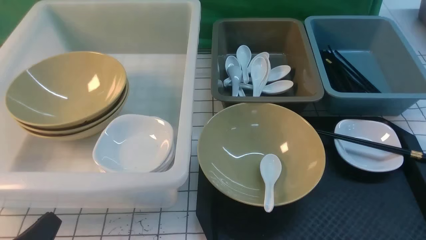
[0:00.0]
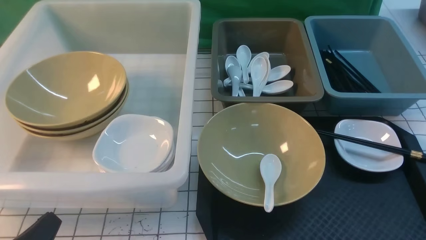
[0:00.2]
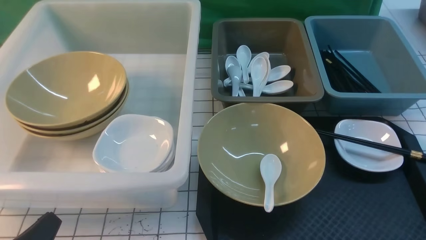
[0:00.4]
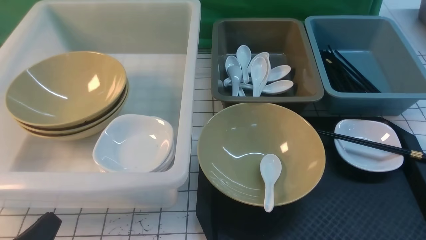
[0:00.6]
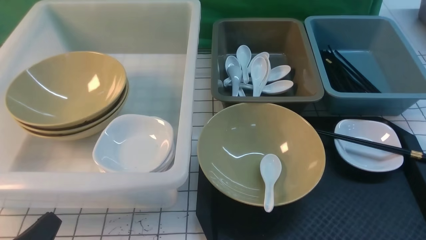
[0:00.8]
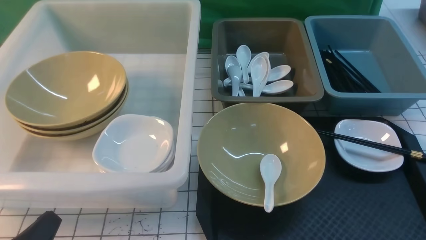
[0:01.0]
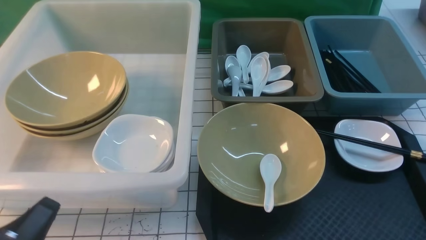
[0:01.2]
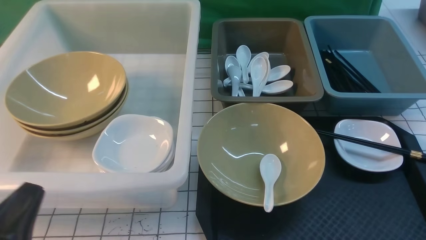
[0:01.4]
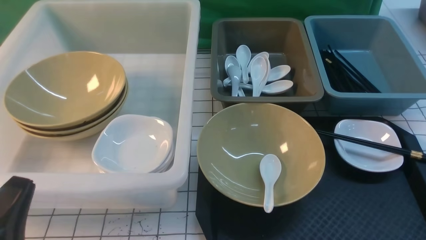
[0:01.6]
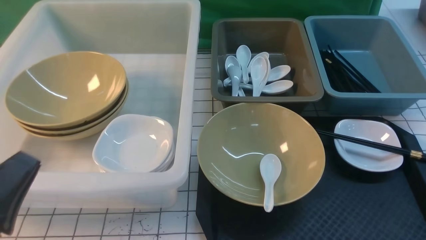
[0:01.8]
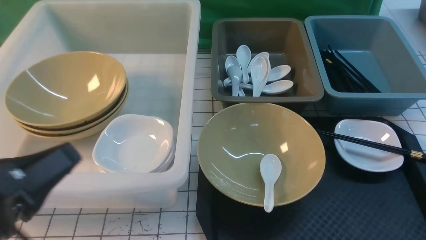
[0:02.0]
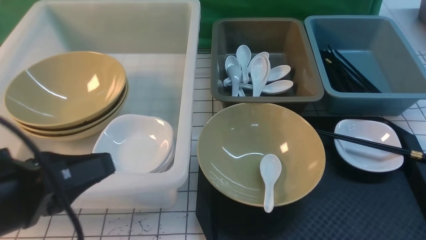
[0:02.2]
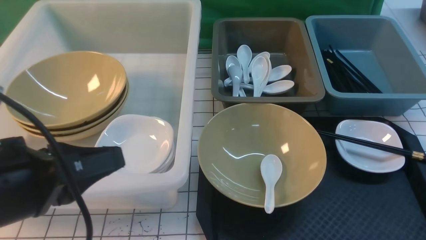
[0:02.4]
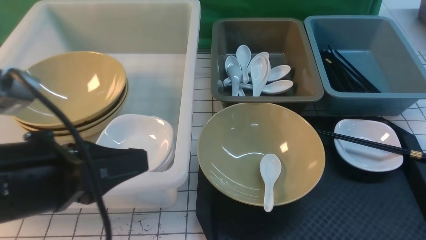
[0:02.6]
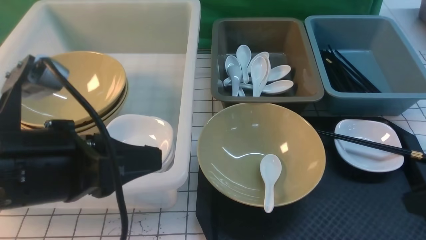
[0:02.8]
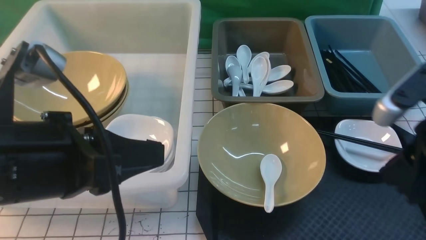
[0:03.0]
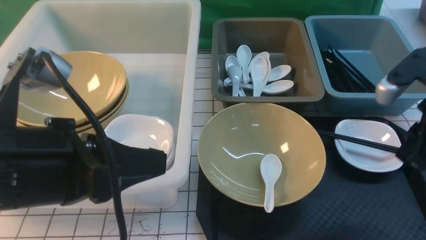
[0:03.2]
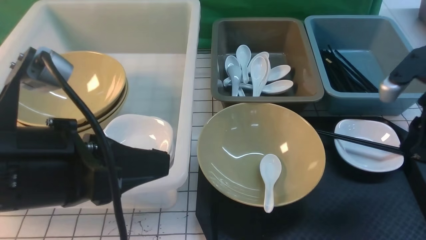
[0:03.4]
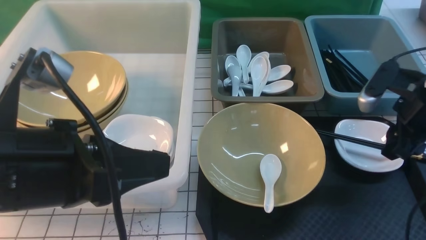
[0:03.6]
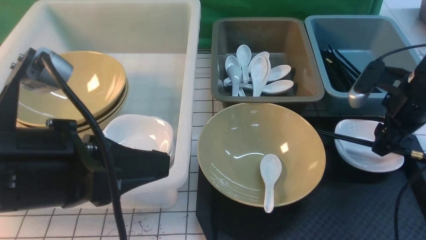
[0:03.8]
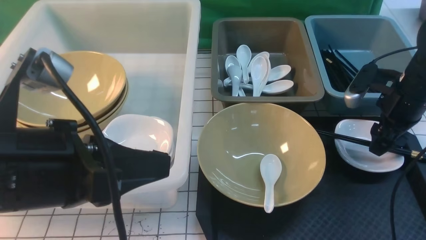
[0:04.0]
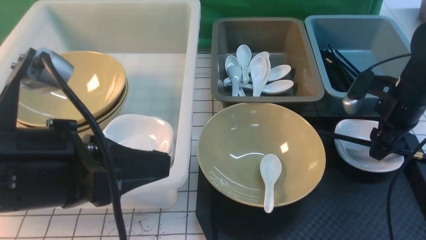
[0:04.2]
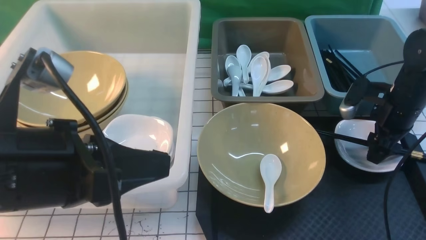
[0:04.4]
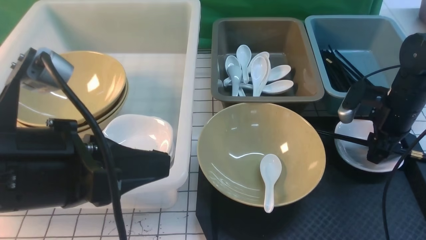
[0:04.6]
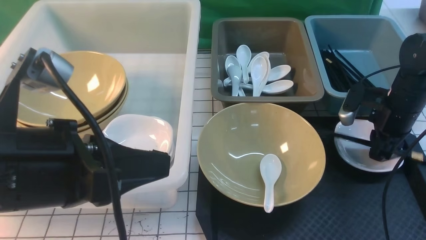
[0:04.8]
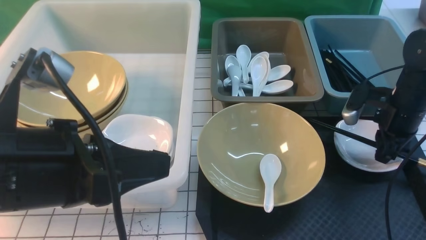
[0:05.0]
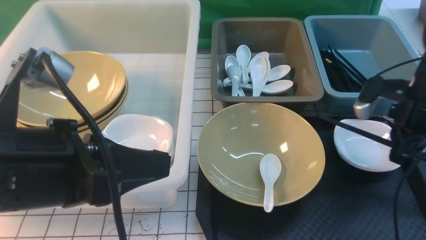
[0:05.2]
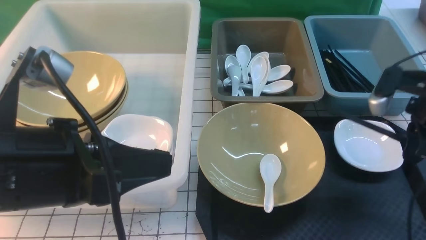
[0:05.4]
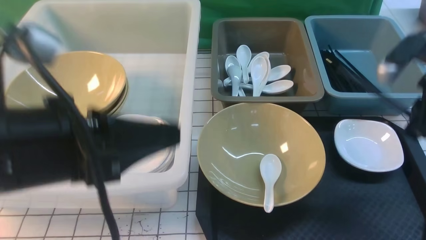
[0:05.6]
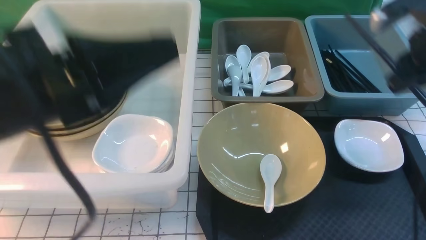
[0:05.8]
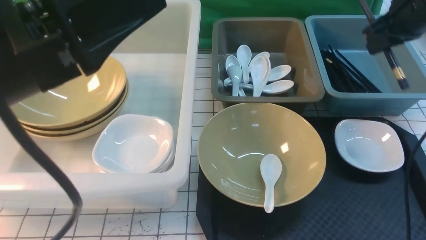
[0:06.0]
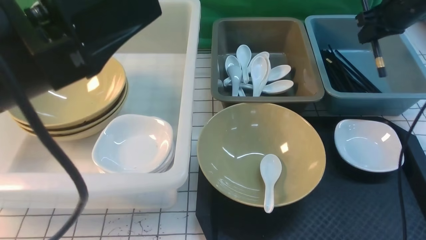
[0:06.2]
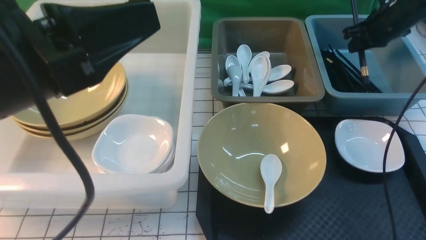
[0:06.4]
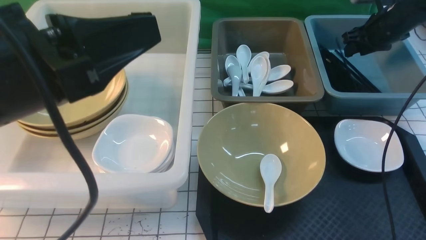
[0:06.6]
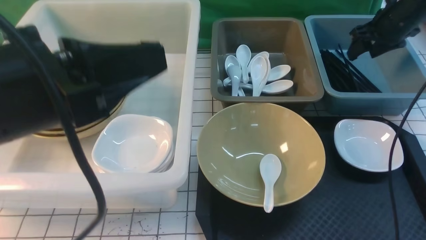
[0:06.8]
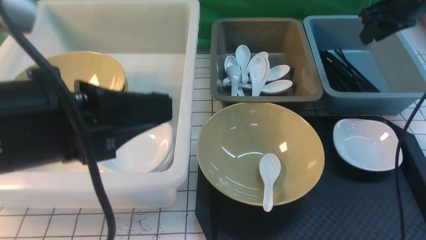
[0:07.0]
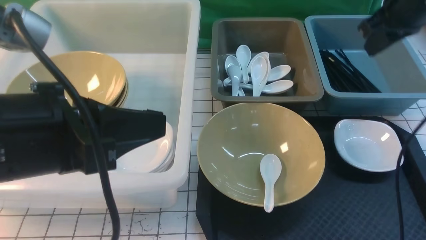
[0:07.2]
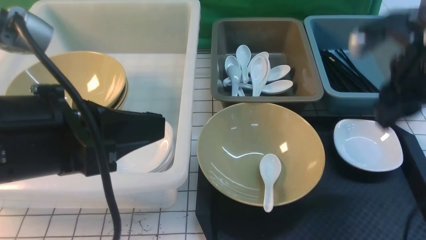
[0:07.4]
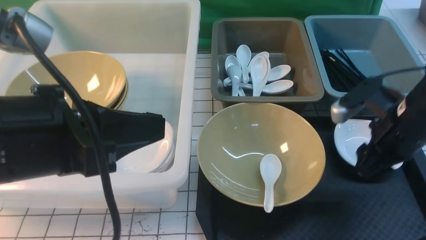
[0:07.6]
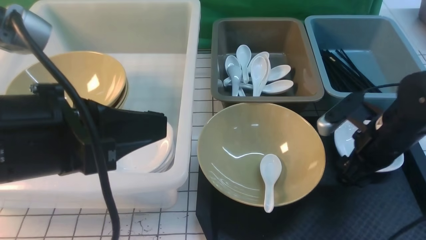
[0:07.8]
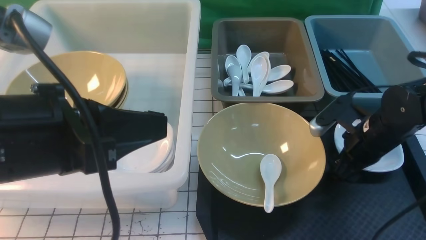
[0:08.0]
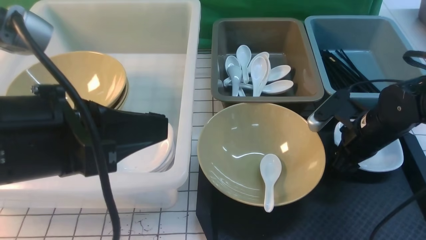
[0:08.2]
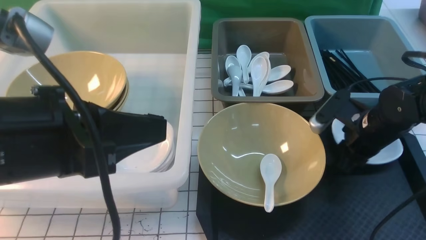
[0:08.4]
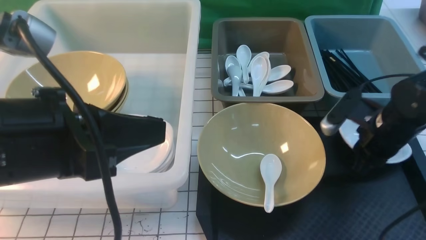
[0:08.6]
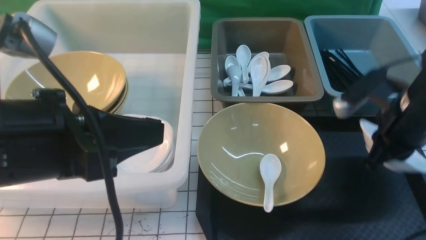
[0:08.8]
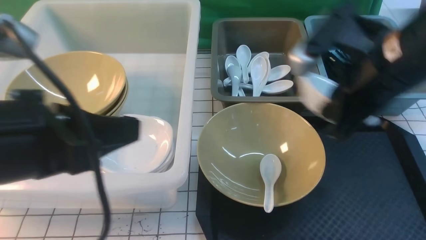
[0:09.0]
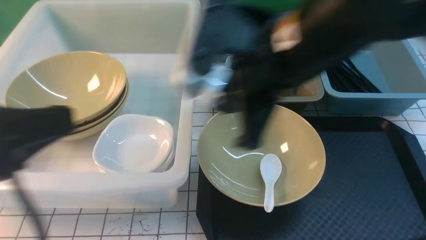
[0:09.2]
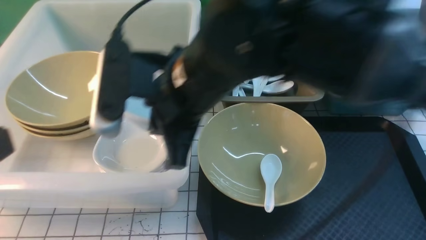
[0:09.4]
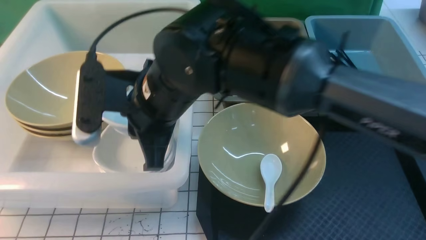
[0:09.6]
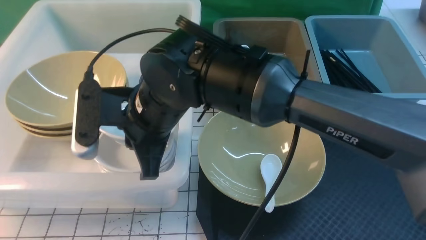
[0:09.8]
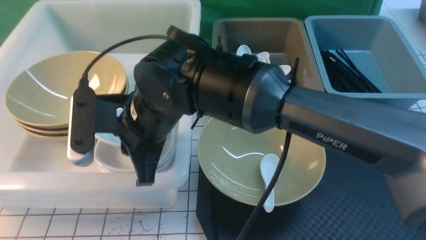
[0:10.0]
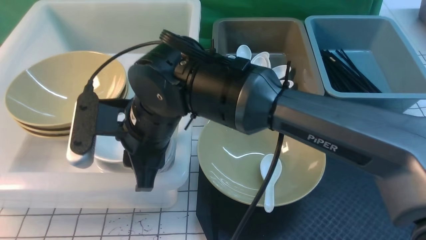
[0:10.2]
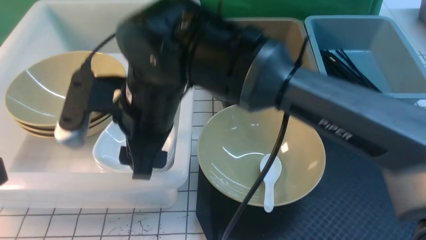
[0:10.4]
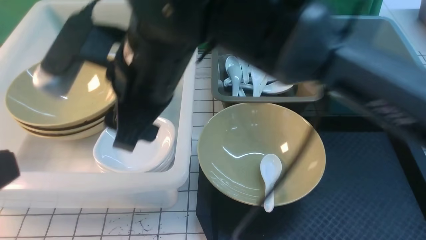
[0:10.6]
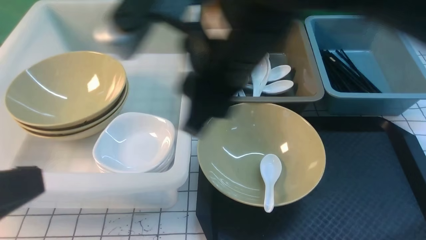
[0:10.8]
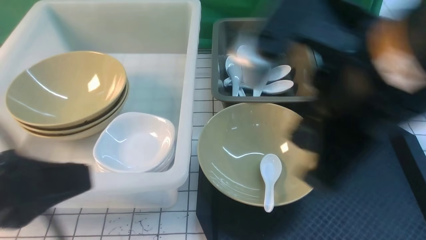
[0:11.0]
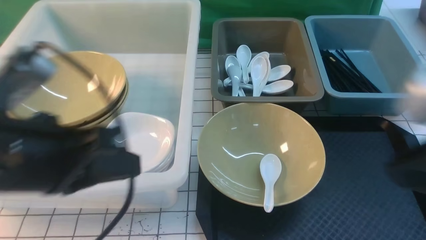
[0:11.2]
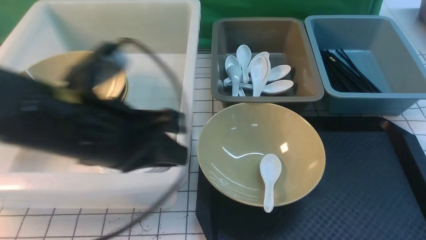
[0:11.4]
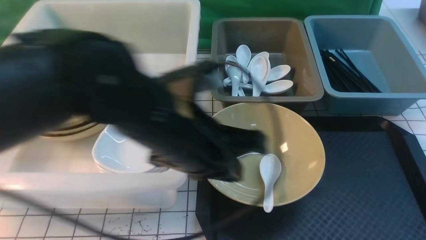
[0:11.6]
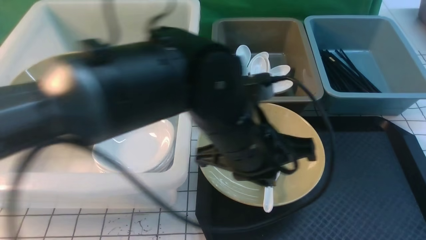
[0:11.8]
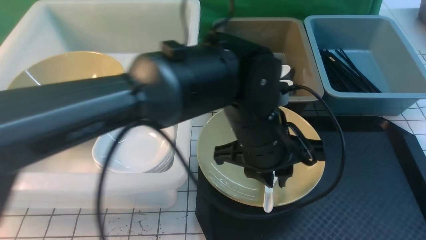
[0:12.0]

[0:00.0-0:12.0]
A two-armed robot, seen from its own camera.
Task of the whole recording: on white black table put chopsticks spoon bowls plates into blue grey white boxes.
Step, 0:00.0 to 0:05.4: use the right arm to grab the chopsticks.
Step, 0:05.6 to 0:07.0: use the right arm to put the chopsticks into the small storage box on the right.
Step, 0:07.2 to 0:08.8: use the right arm to grab the plate.
Step, 0:09.0 to 0:10.2: use the right arm to put the plate into the large storage box on the left.
0:00.0 to 0:01.6: The left gripper goes some 5 cm upward.
0:01.6 to 0:03.0: The left gripper shifts approximately 15 cm upward, to the right and forward; the right gripper shifts roughly 20 cm forward, upward and to the left.
0:03.0 to 0:04.4: The right gripper moves forward and downward, roughly 25 cm, and opens up.
0:04.4 to 0:06.0: The right gripper heads upward, covering some 15 cm, and closes up. Meanwhile the left gripper moves upward, roughly 5 cm.
0:06.0 to 0:07.6: The right gripper goes about 15 cm backward, downward and to the left, and opens its fingers.
0:07.6 to 0:09.0: The right gripper shifts approximately 15 cm upward and to the left, and closes.
0:09.0 to 0:10.4: The right gripper travels to the left by roughly 20 cm, and opens; the left gripper shifts some 10 cm backward and to the left.
0:10.4 to 0:12.0: The right gripper shifts about 40 cm to the right and backward, and closes its fingers; the left gripper heads to the right, forward and downward, covering approximately 35 cm, and opens.

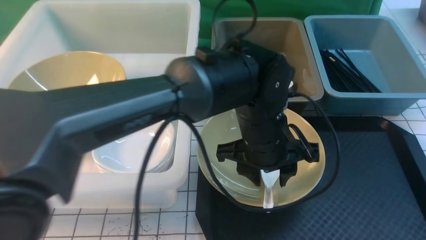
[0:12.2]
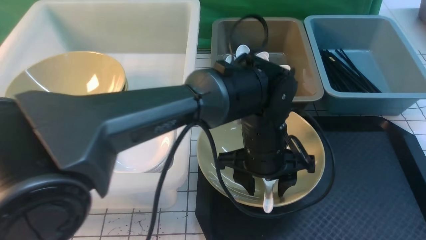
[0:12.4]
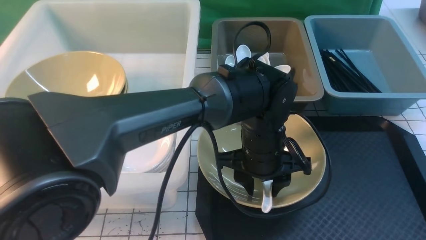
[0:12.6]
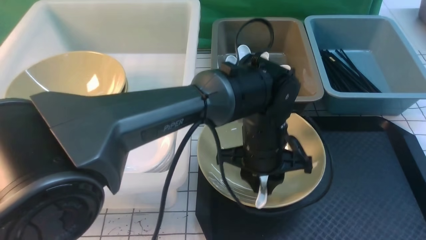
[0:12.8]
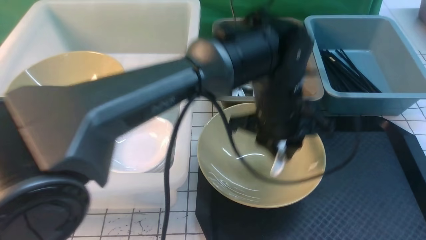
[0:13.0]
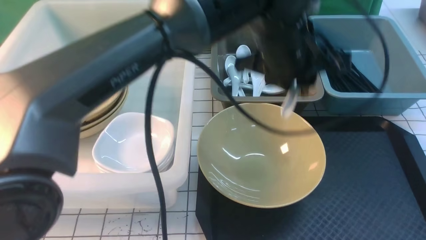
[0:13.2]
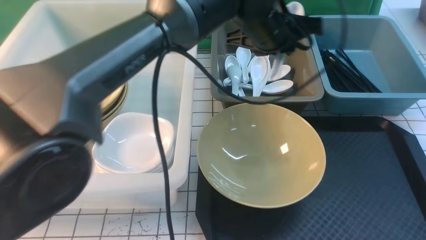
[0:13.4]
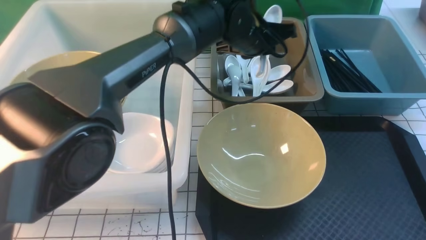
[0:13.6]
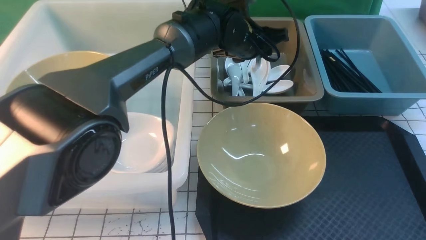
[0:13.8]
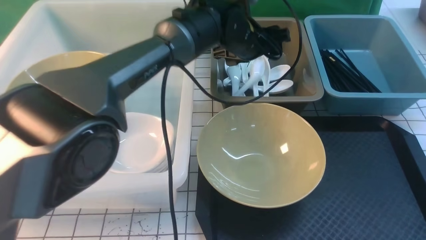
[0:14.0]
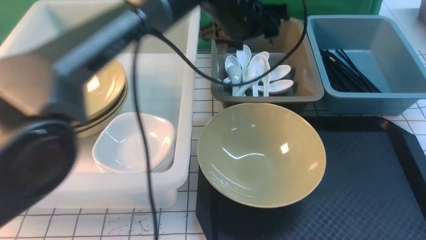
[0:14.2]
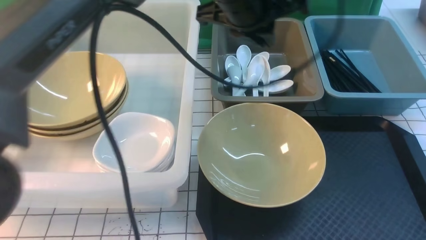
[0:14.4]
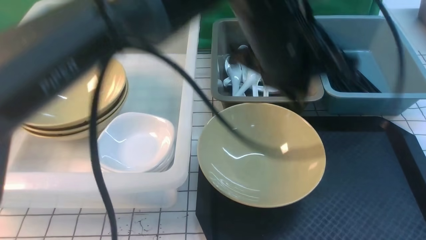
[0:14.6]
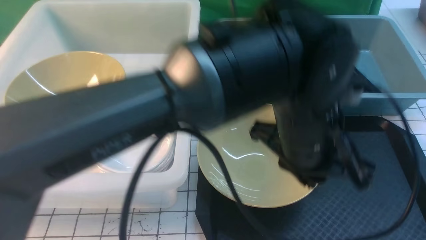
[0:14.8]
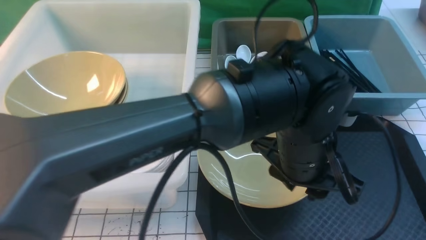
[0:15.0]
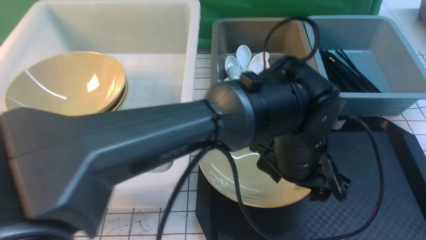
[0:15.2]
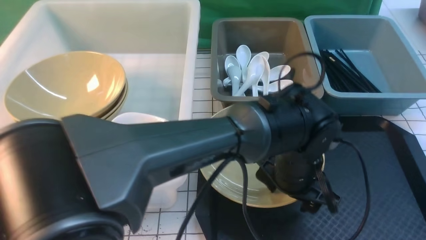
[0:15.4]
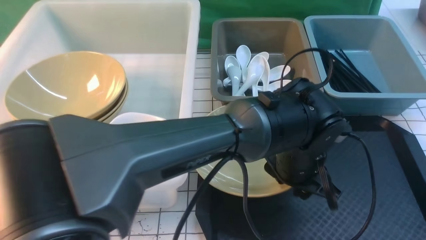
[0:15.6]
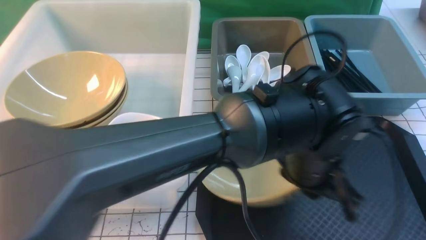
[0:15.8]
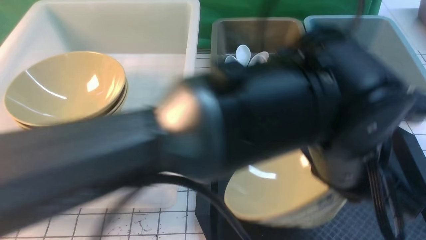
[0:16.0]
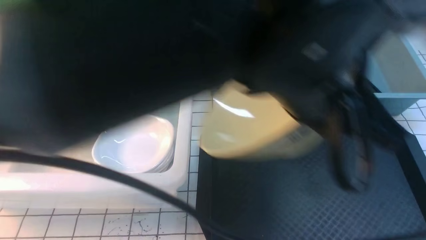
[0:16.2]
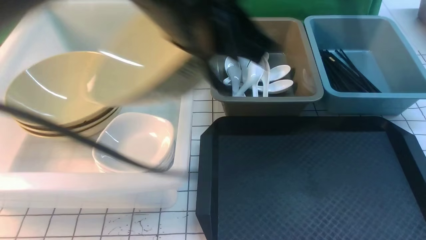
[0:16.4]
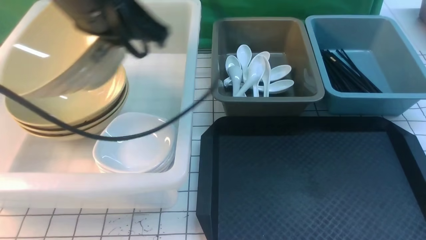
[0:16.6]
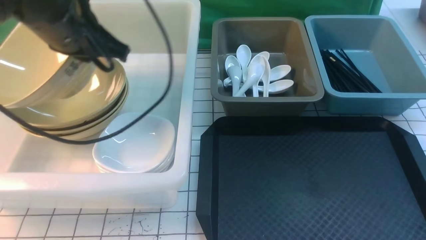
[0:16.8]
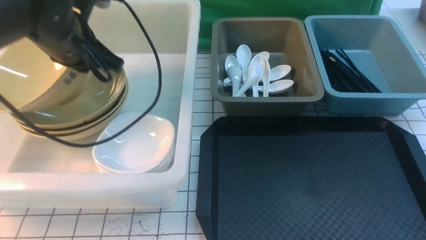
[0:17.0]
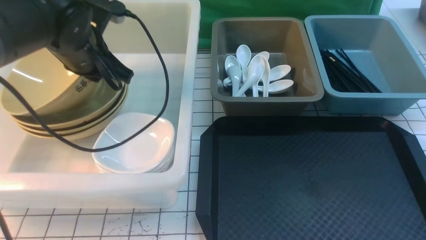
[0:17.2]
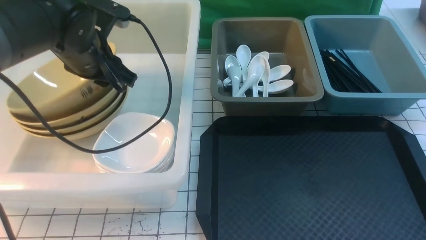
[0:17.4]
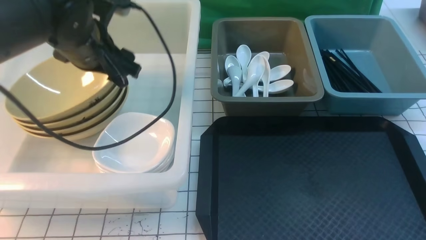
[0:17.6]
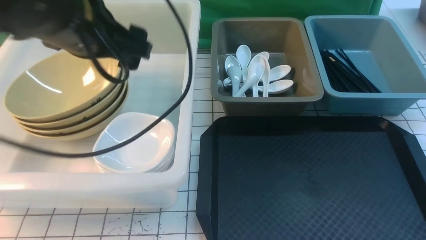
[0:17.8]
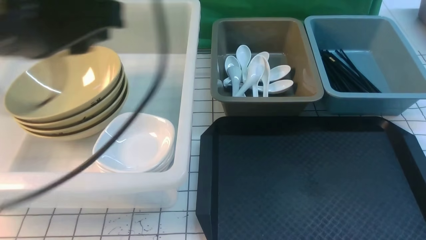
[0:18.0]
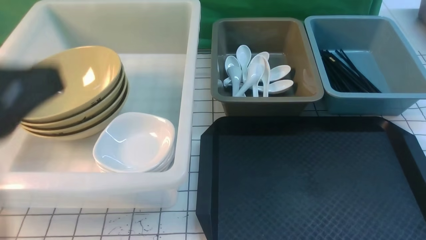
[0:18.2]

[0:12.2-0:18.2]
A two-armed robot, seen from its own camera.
Task of the whole recording: on white black table put chopsticks spoon bowls plates into blue grey white boxes.
Step, 0:13.4 to 0:14.2: use the left arm to put the soup spoon into the small storage box in the middle.
Step, 0:14.4 to 0:15.8: use the left arm to grab the yellow noodle bowl on the left.
Step, 0:16.2 to 0:17.8: use the left arm to put the noodle bowl into the large storage box on the left.
0:12.2 to 0:13.8: The left gripper is displaced forward by approximately 20 cm, and closes and opens again.
0:13.8 to 0:15.2: The right gripper moves about 5 cm. Meanwhile the left gripper goes about 20 cm backward, and closes and opens again.
0:15.2 to 0:16.6: The right gripper moves to the left, about 5 cm; the left gripper moves to the left and upward, some 30 cm, and closes its fingers.
0:16.6 to 0:18.2: The left gripper moves backward and to the left, about 20 cm, and opens, then closes again.
